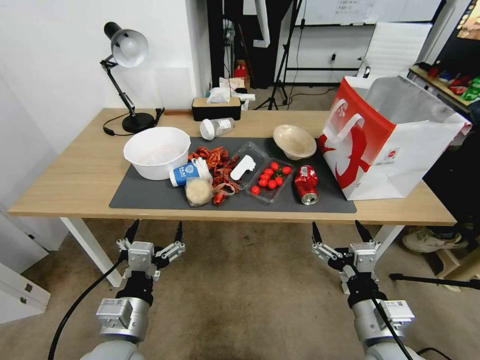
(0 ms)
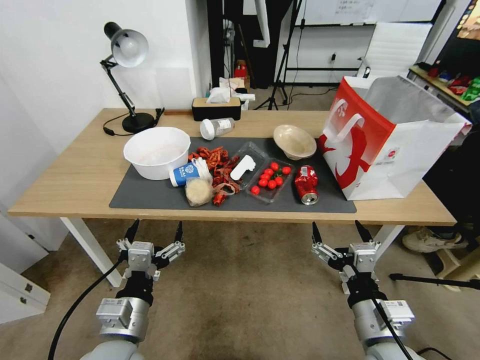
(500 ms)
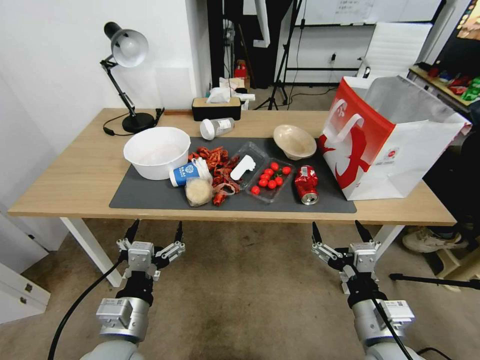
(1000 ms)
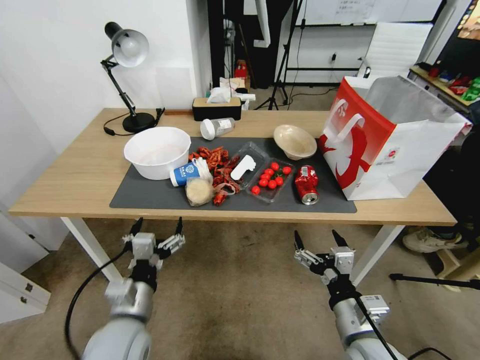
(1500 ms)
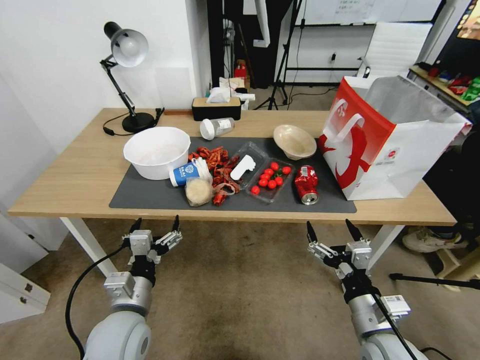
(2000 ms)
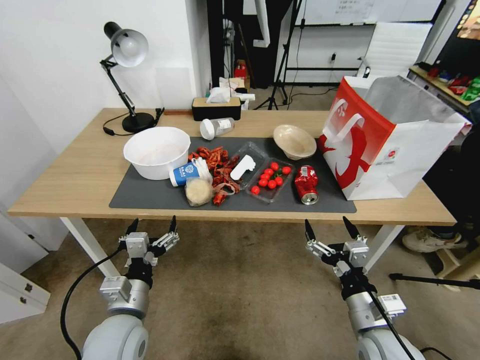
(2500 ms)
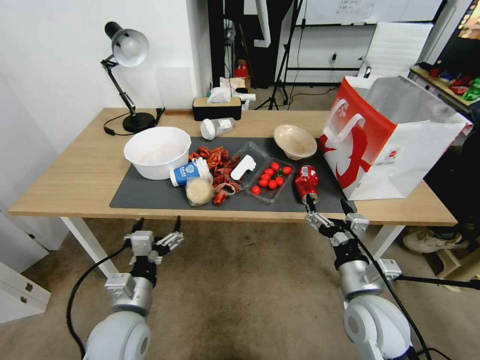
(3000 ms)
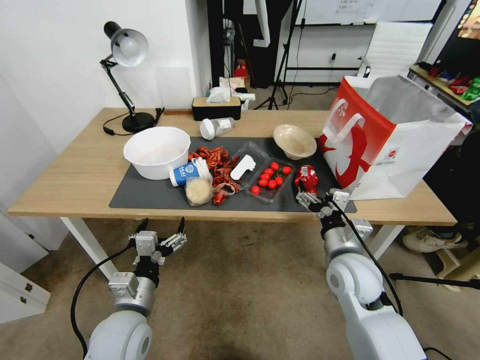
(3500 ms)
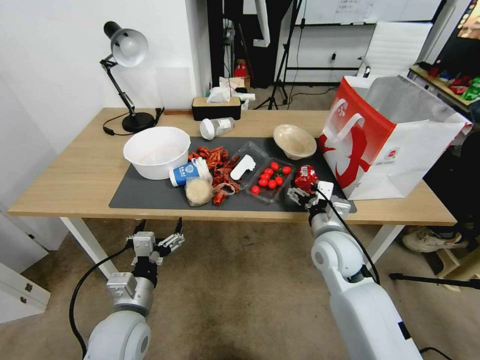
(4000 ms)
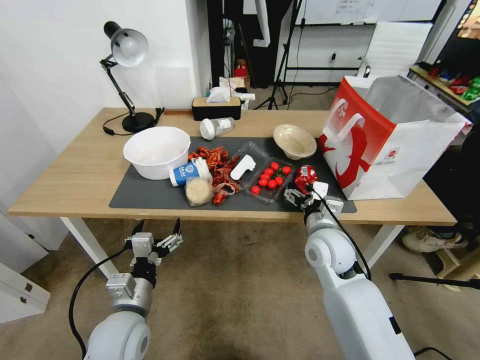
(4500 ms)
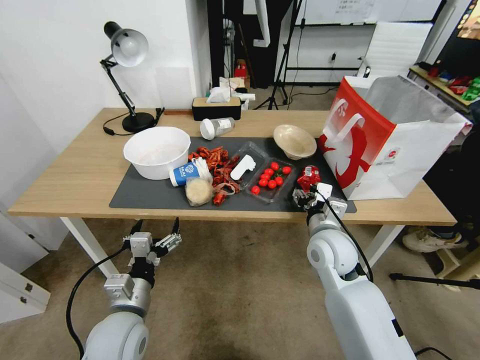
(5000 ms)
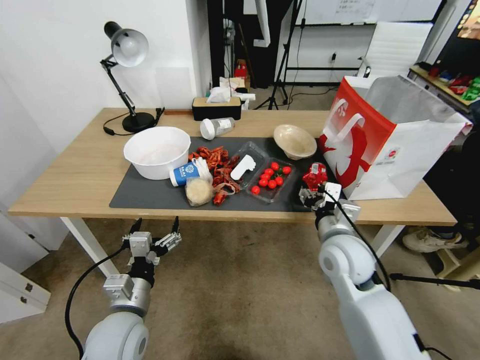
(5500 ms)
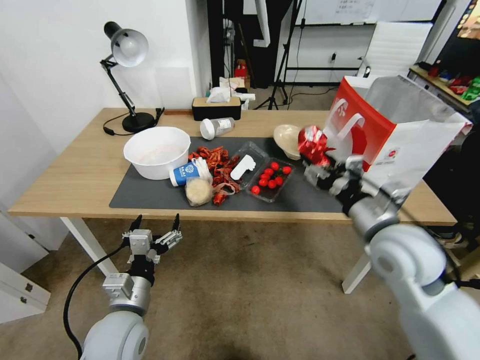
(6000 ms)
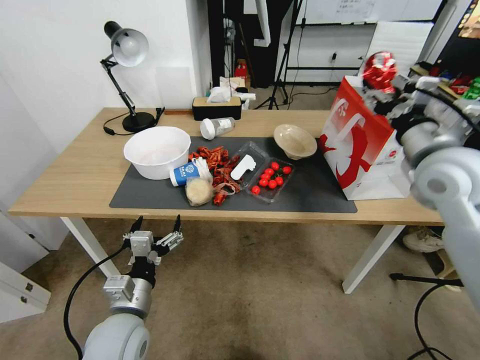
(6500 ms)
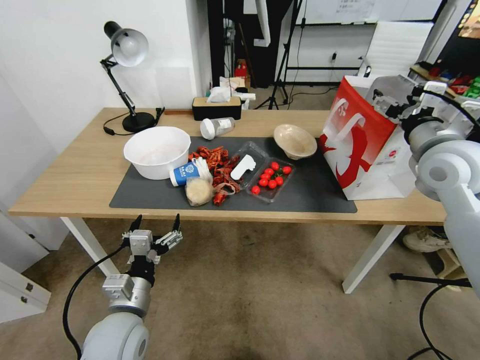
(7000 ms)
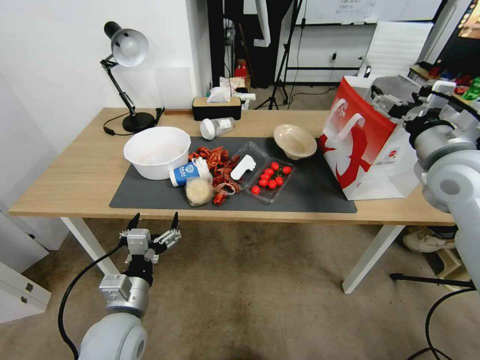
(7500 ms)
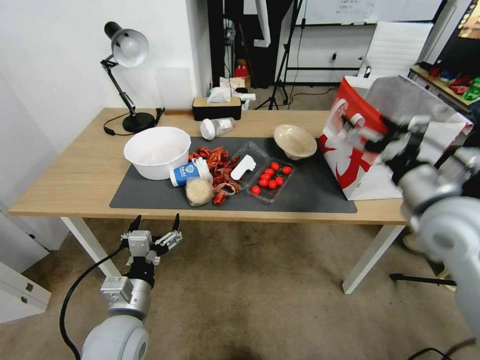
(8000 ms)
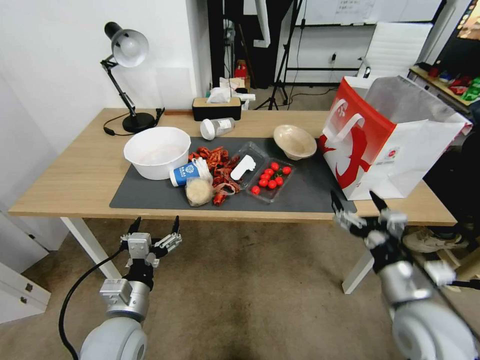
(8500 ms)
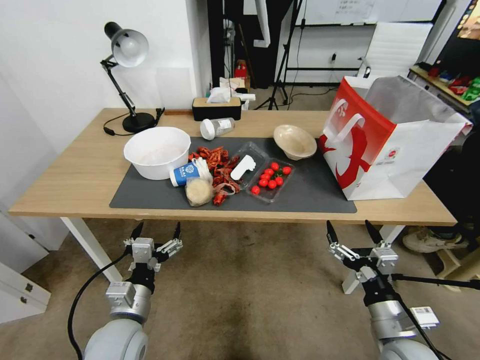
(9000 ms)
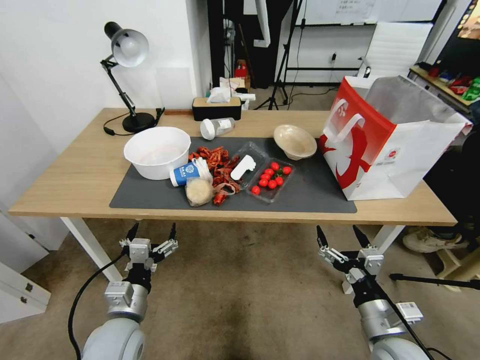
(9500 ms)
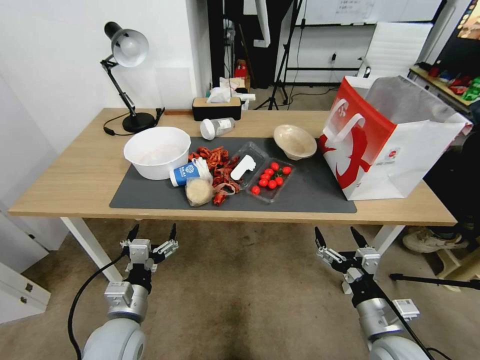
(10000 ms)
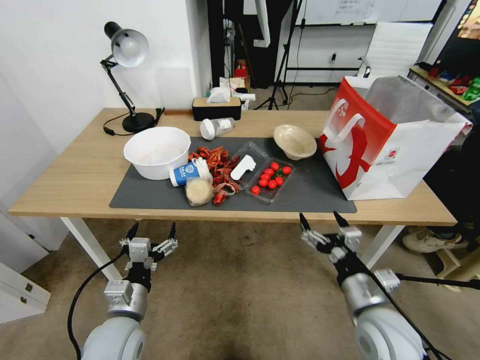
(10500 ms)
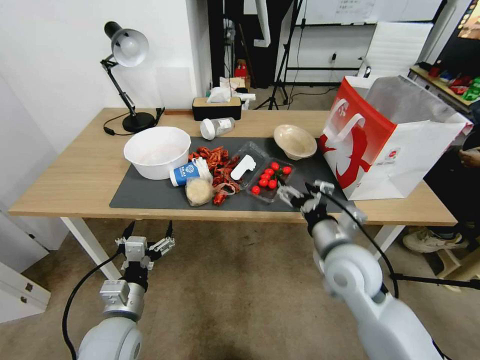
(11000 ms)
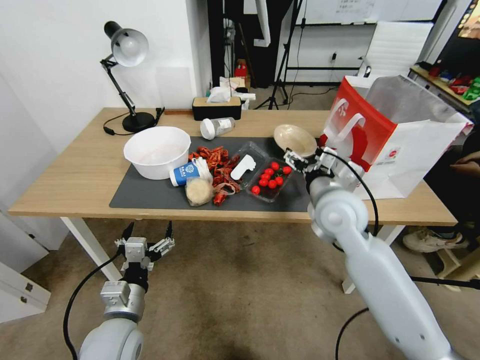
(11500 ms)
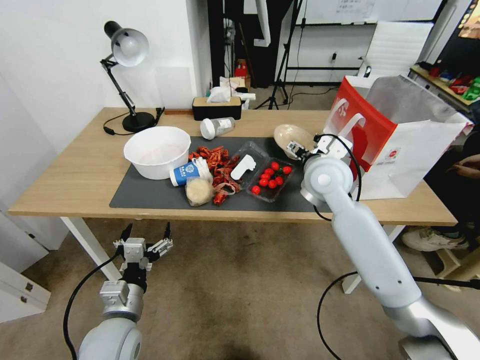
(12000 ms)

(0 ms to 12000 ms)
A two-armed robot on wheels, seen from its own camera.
2000 ms - 4000 ms: The right gripper is displaced forward by approximately 20 cm.
4000 ms - 6000 ms: The right gripper goes some 10 cm upward and to the right, and closes.
6000 ms - 8000 ms: The right gripper heads to the right and upward, covering some 10 cm, reaches approximately 10 cm forward, then returns, and opens.
8000 ms - 10000 ms: The right gripper shifts approximately 25 cm downward and backward.
10000 ms - 12000 ms: The right gripper travels forward and upward by approximately 35 cm.

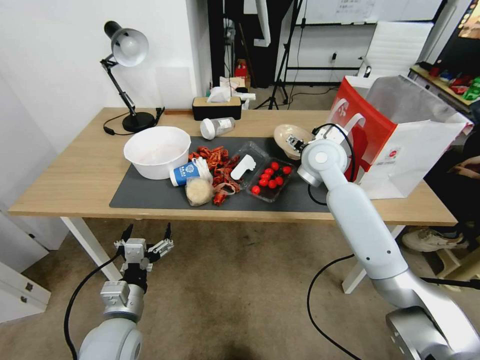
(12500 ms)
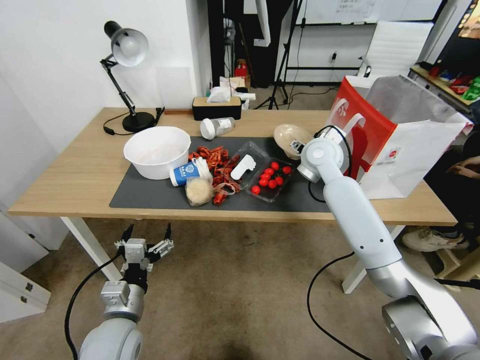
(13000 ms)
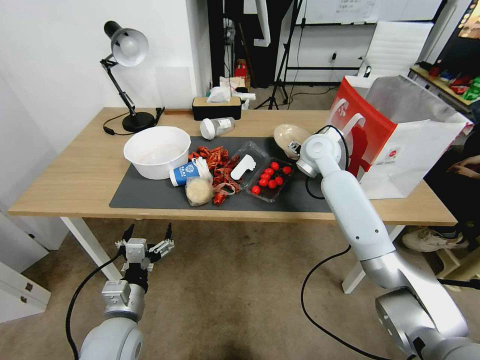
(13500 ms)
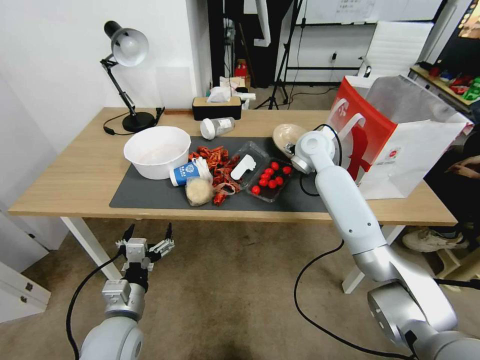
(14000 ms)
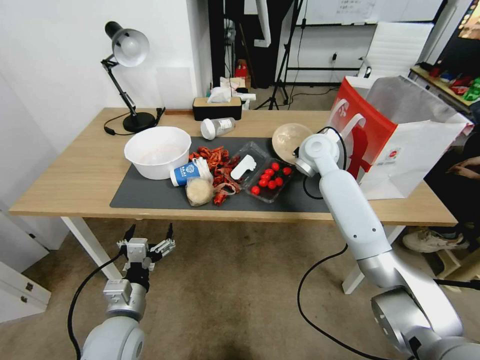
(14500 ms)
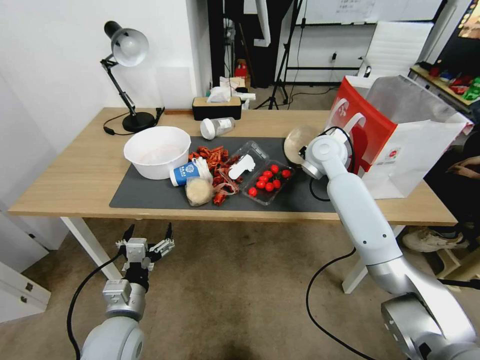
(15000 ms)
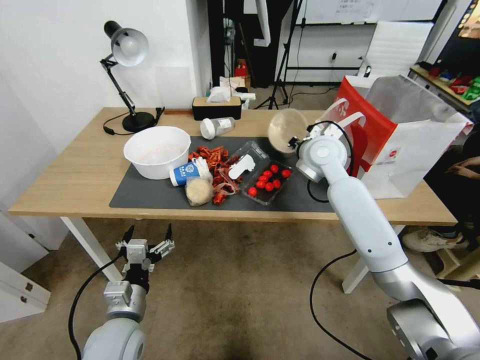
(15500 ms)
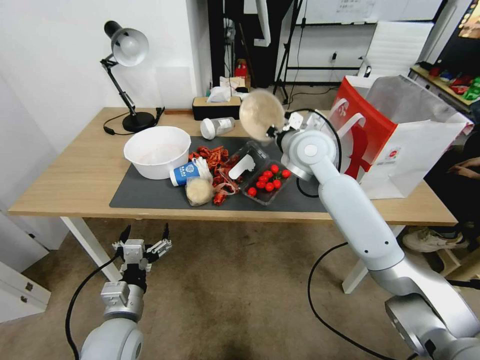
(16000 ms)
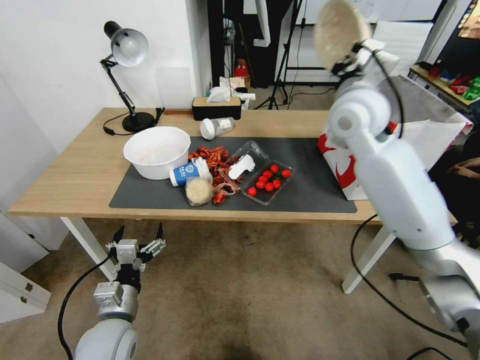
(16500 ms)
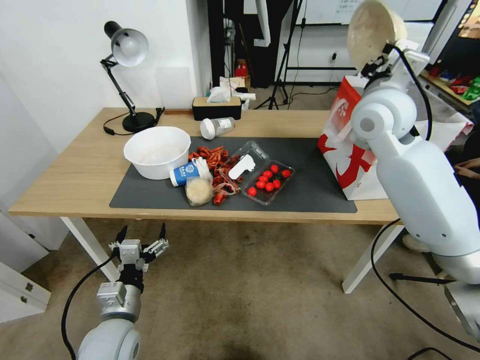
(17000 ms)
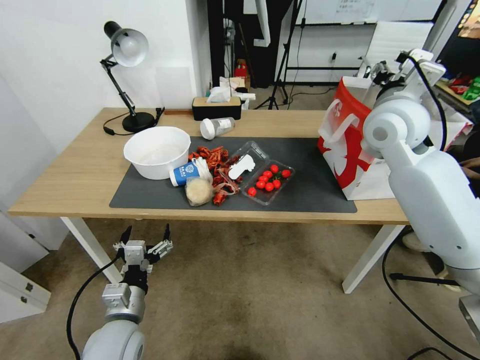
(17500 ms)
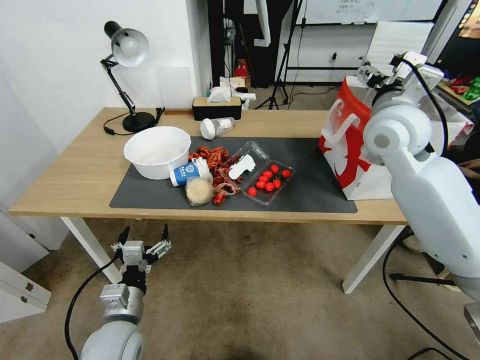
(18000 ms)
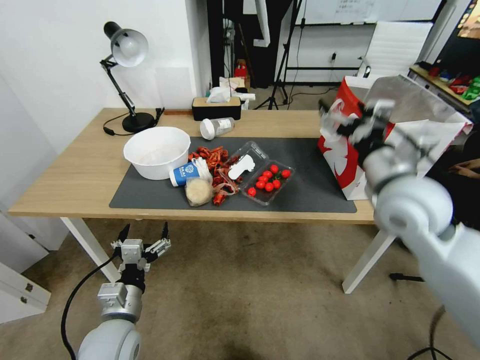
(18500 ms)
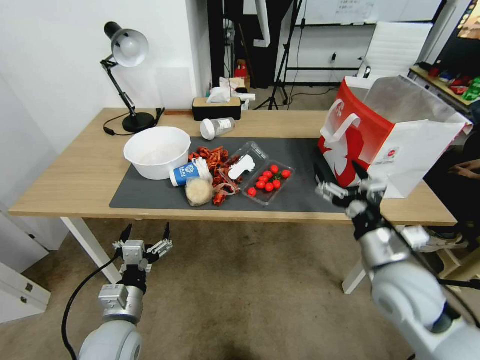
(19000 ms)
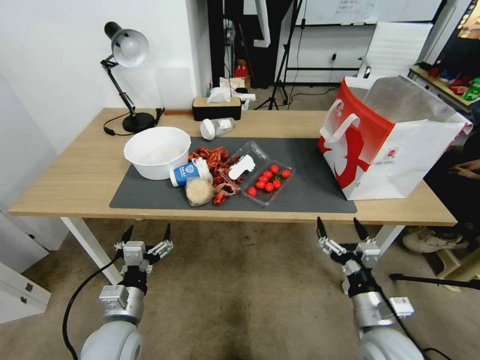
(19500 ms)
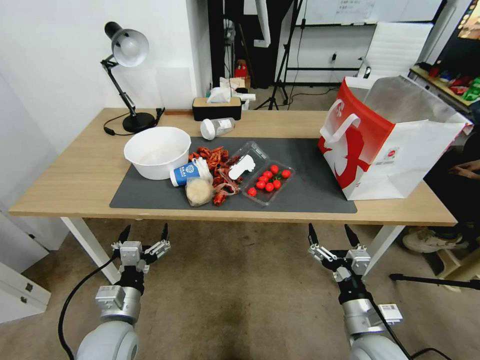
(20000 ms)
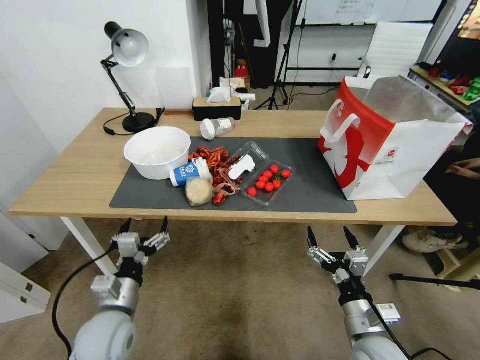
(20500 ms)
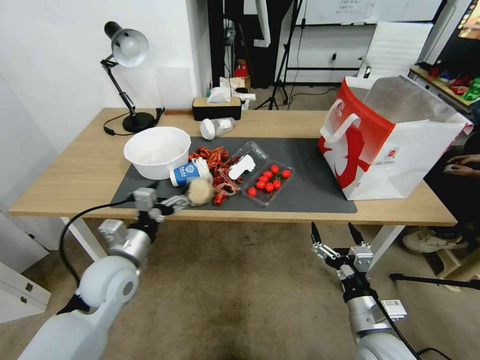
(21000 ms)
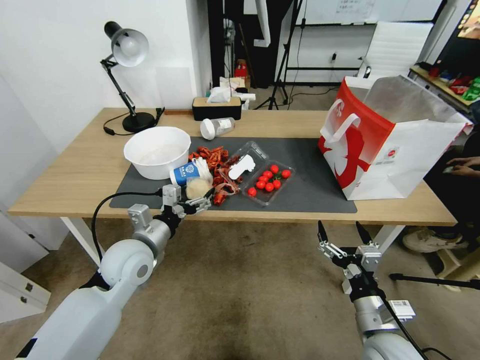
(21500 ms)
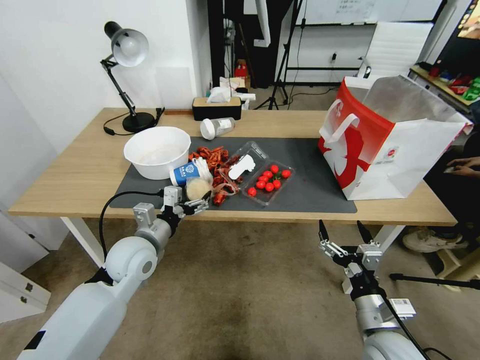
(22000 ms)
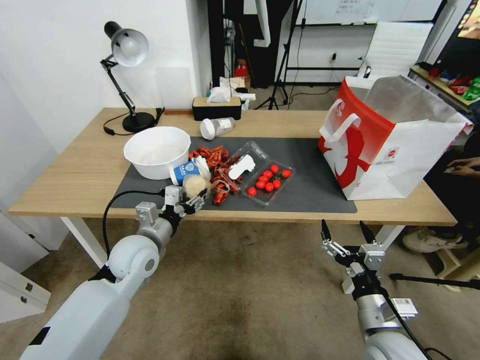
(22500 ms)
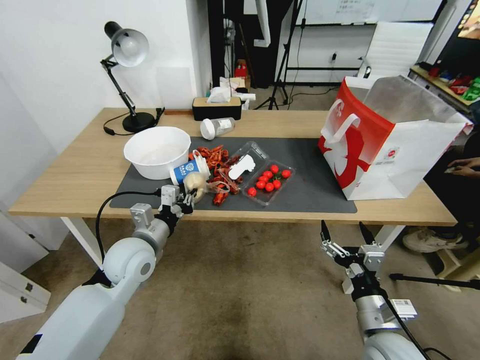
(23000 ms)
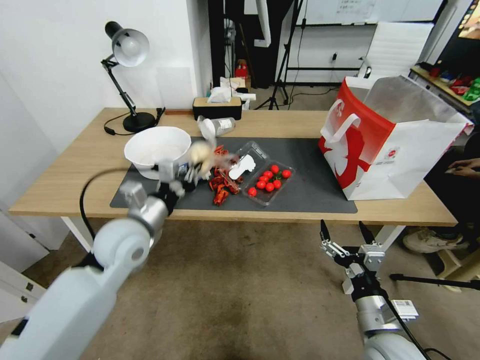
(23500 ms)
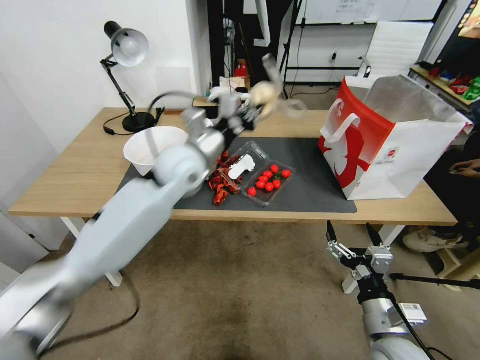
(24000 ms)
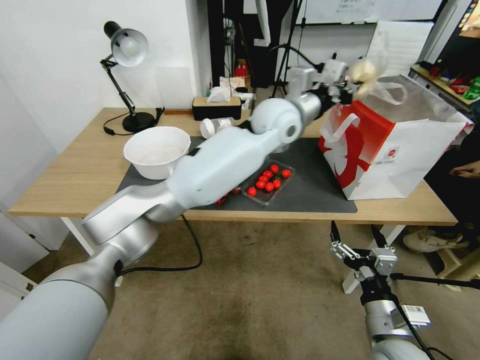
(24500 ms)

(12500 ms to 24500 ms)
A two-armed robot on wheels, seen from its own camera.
12500 ms - 14500 ms: The right gripper moves forward, about 5 cm, and closes up.
14500 ms - 16500 ms: The right gripper travels upward and backward by approximately 15 cm, and closes.
16500 ms - 18500 ms: The right gripper is displaced backward, downward and to the right by some 15 cm, and opens.
18500 ms - 20500 ms: The right gripper goes approximately 30 cm downward and backward.
20500 ms - 22500 ms: The left gripper shifts roughly 15 cm forward and upward, and closes its fingers.
22500 ms - 24500 ms: The left gripper heads to the right, upward and forward, covering roughly 40 cm, and closes.

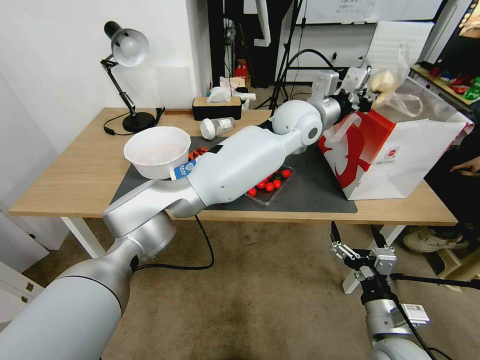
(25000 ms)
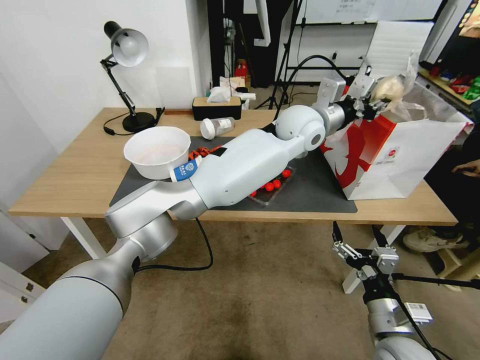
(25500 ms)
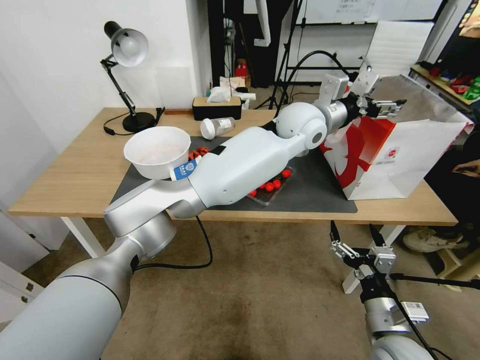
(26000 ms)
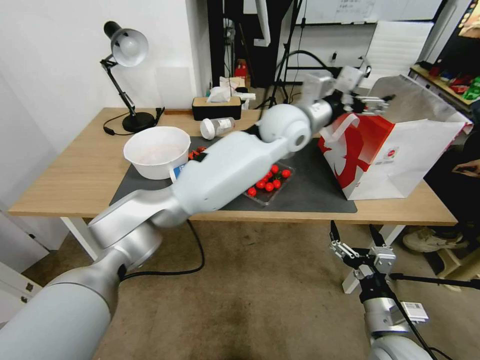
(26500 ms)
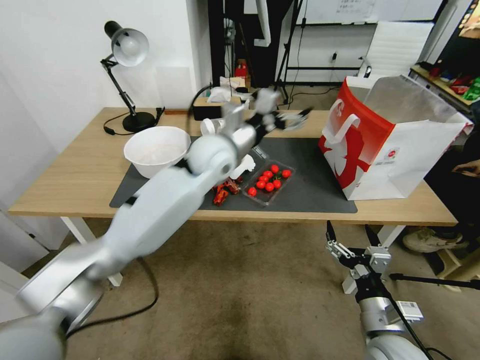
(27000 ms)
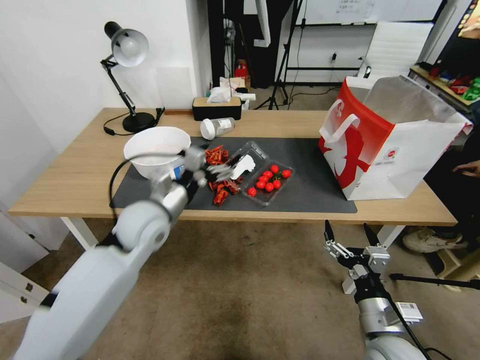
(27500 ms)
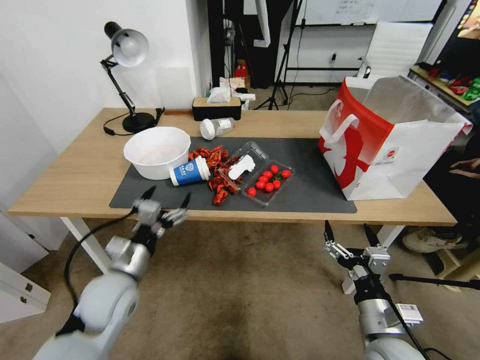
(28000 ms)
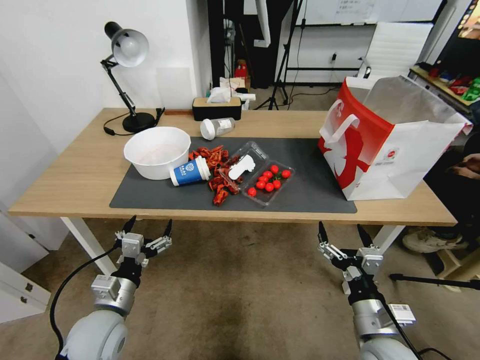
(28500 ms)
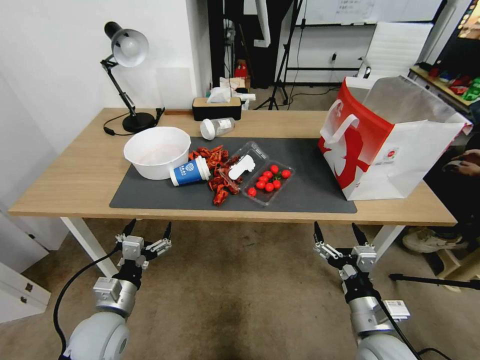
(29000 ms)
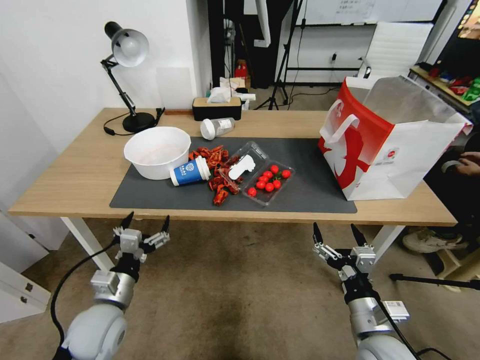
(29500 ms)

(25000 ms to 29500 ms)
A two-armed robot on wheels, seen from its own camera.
25000 ms - 27000 ms: The left gripper shifts about 20 cm to the left, and opens up.
27000 ms - 29500 ms: The left gripper travels backward, downward and to the left by some 40 cm.
